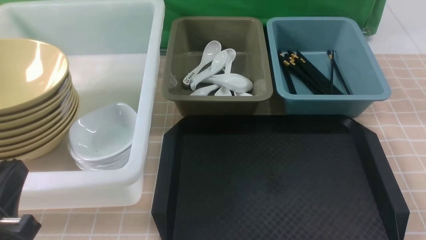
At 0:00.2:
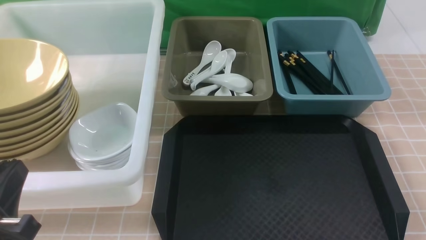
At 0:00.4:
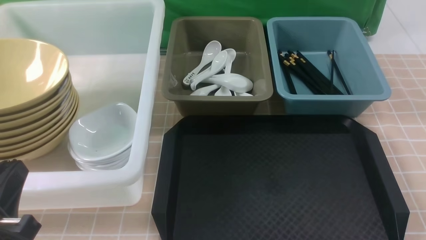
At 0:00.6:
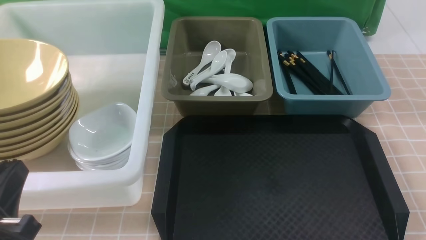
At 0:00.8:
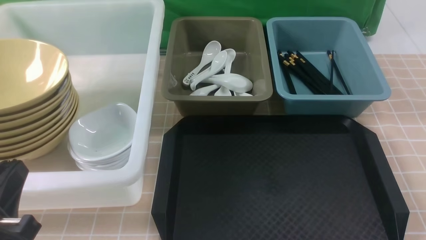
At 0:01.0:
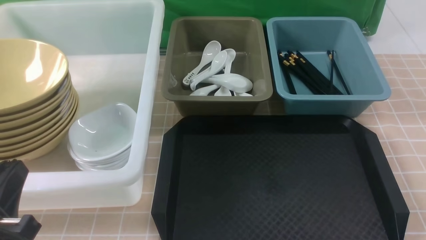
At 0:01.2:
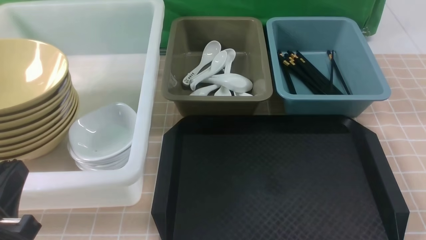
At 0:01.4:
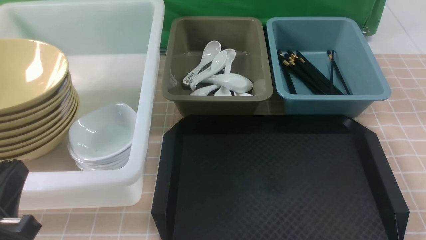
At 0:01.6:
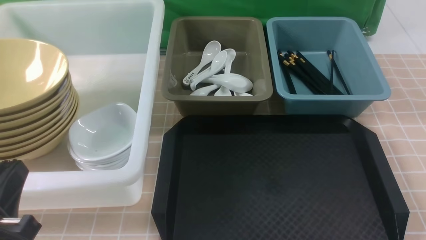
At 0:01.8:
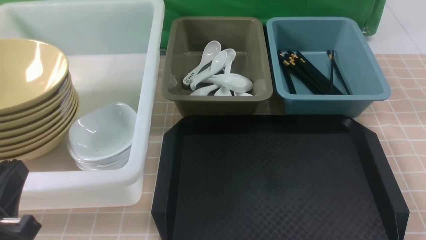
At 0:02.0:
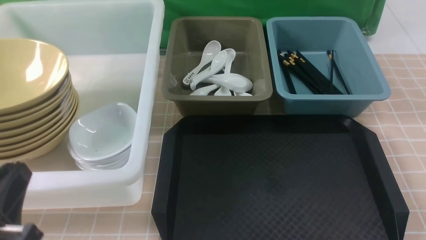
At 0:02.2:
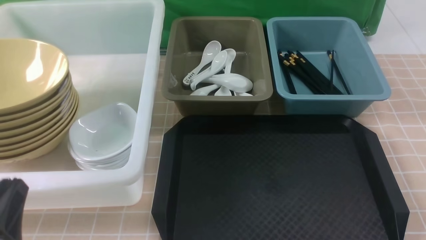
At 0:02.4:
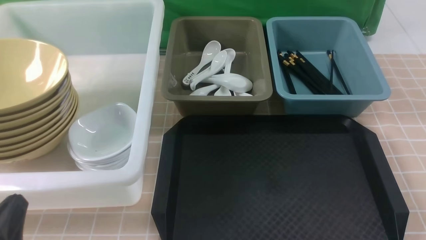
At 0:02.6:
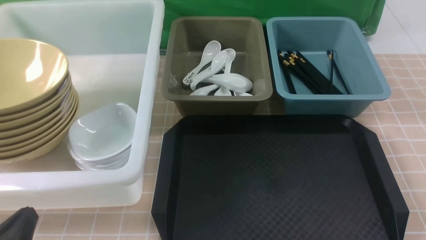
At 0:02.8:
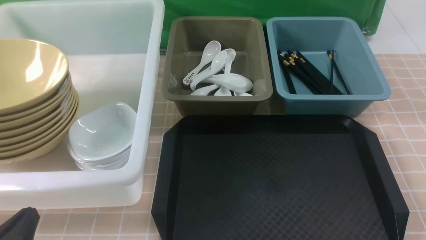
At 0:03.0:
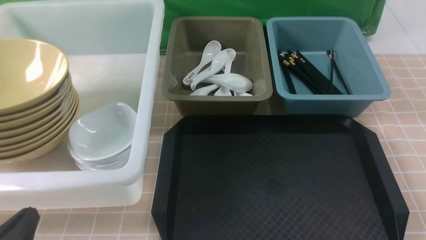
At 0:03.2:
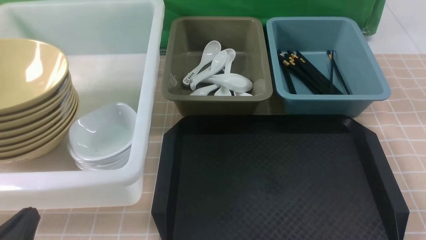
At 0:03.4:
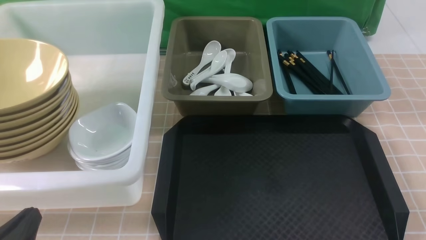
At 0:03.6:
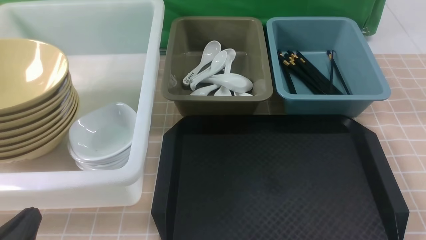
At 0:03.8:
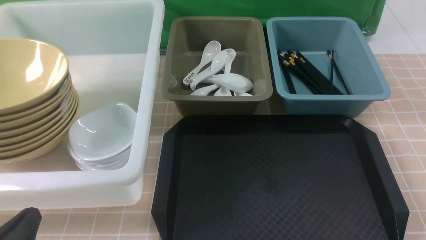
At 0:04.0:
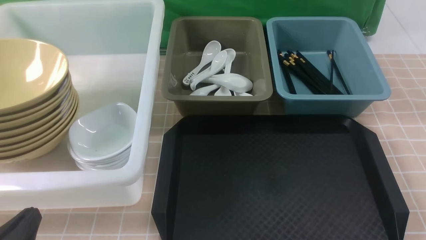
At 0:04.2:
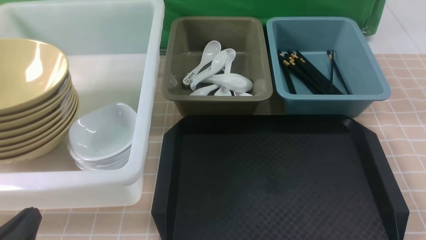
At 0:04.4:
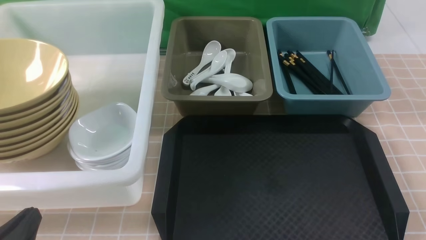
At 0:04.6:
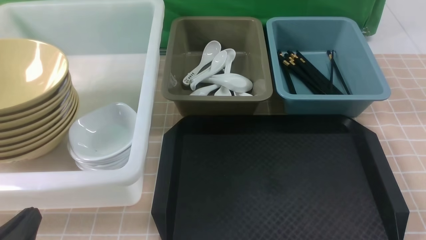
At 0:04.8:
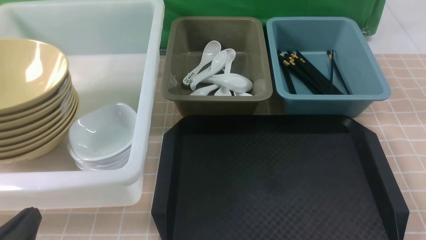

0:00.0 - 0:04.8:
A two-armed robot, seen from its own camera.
Task of the whole recording: on brown table put chopsticks spoon bowls plates into blue grey white boxes.
0:01.6 - 0:03.2: The left gripper shifts approximately 5 cm downward.
0:03.2 - 0:04.8: Both grippers stay about where they are.
